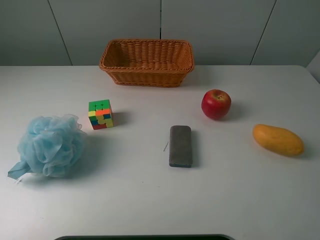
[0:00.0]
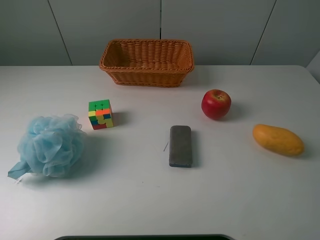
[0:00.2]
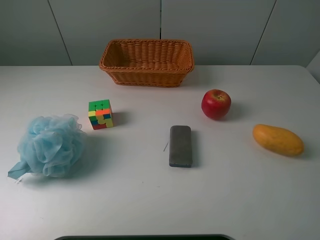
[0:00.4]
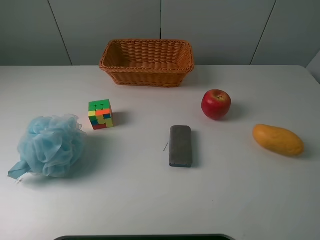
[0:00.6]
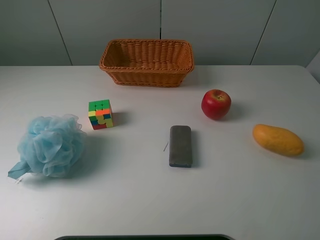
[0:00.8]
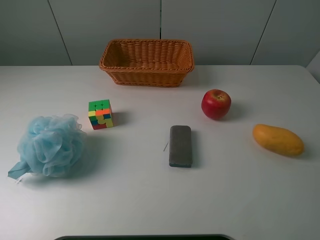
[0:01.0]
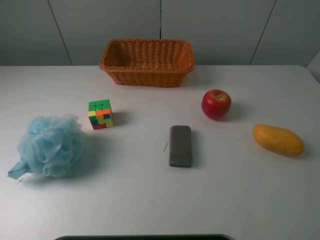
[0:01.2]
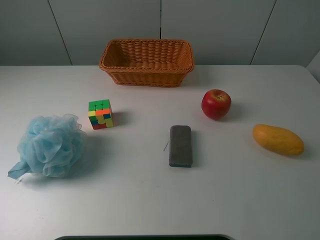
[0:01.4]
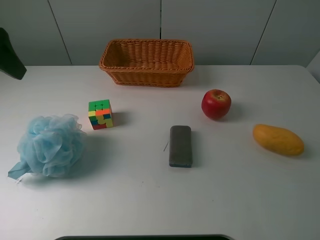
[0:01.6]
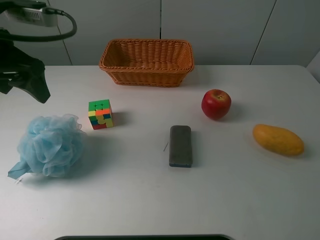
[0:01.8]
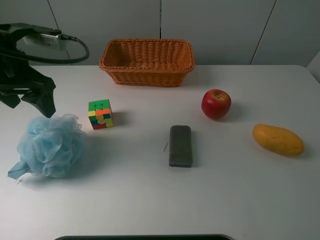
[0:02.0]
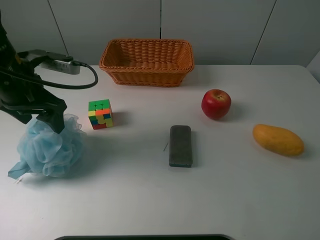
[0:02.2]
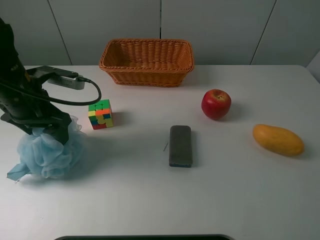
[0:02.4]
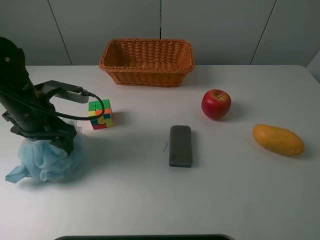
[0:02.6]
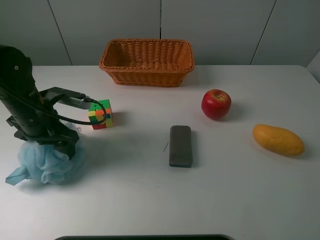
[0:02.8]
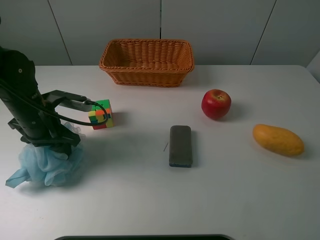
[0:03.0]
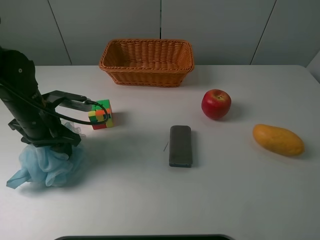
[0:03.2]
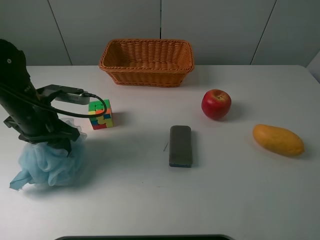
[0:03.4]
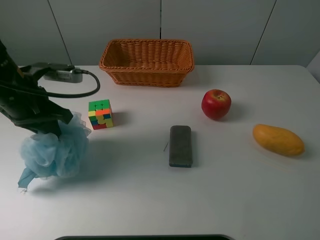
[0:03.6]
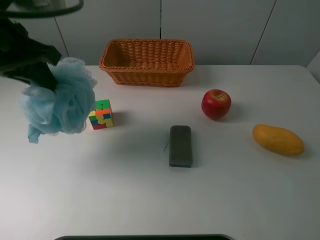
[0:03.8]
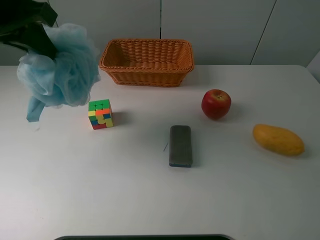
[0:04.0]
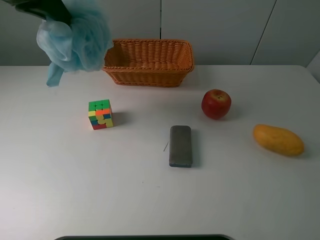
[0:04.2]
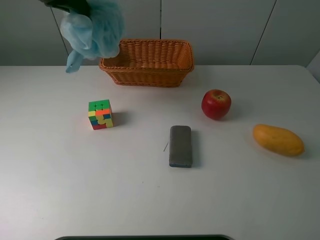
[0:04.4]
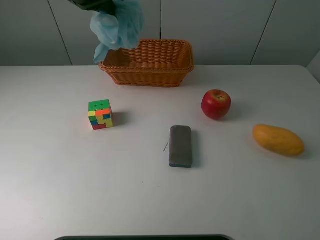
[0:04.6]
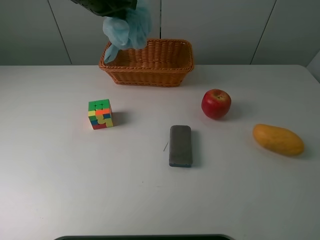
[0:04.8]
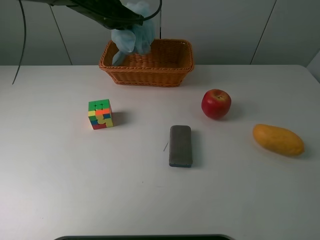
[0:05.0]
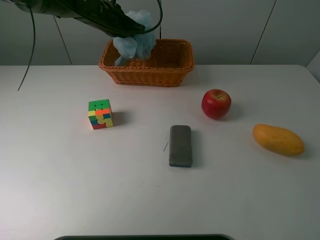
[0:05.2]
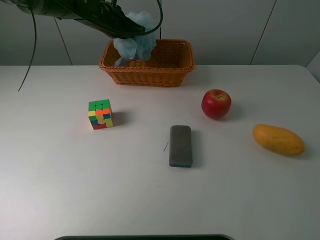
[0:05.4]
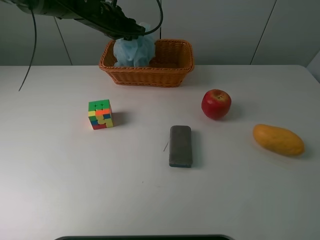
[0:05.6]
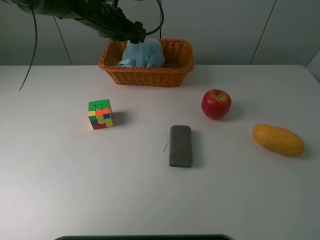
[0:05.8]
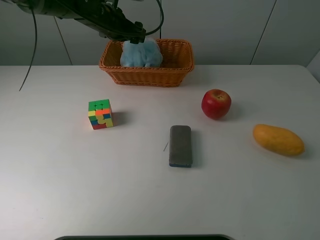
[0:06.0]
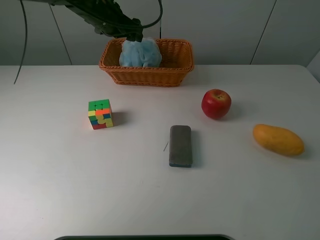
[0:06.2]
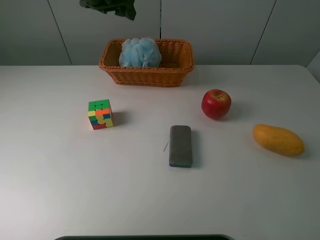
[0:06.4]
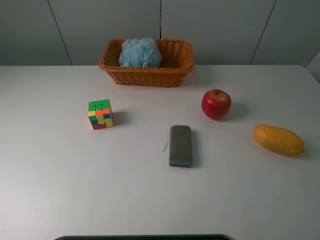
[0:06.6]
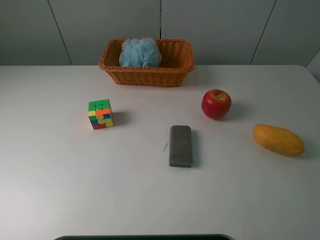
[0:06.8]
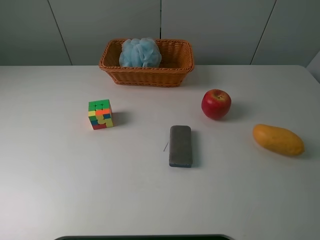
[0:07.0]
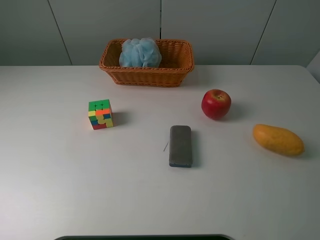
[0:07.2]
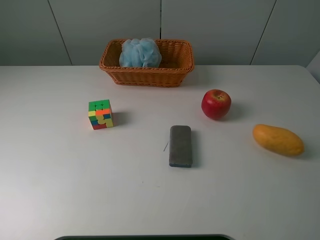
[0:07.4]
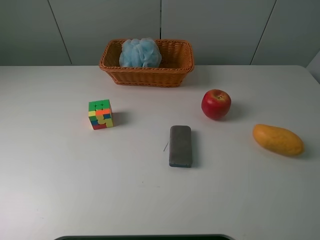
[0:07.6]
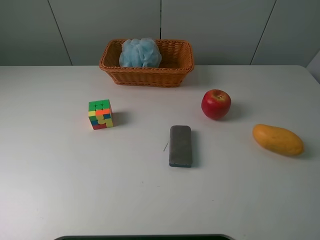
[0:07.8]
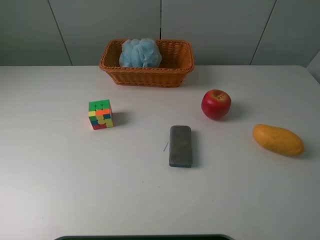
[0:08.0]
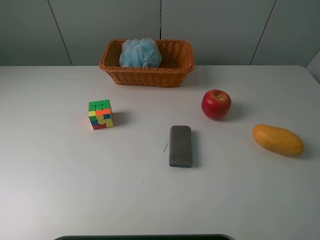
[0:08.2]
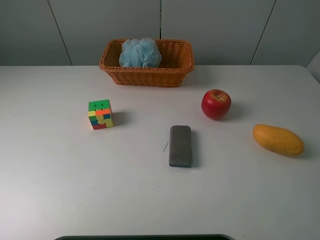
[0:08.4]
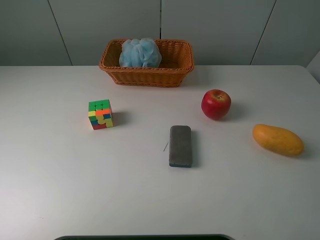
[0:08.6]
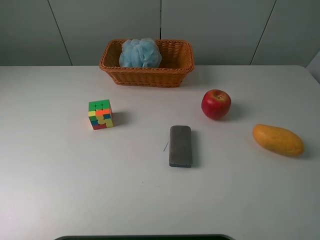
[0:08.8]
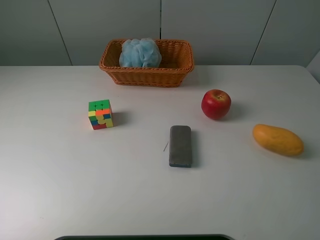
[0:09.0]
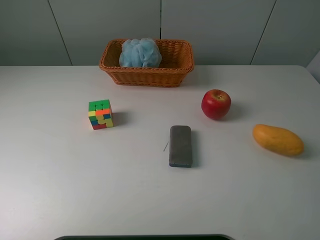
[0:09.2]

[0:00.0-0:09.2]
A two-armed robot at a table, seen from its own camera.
Task of the whole recording: use a picker to grab the item closest to the cube and place it in the basket.
Step, 0:00.0 to 0:03.0: Grasp the Shower puff with the left gripper.
Step, 0:03.2 to 0:06.0: Place the Shower puff into the basket with the left gripper.
0:00.0 to 0:01.6: The left gripper heads forward, covering some 25 cm.
0:01.6 to 0:03.0: The left gripper is displaced downward by approximately 20 cm.
0:03.0 to 0:04.6: The left gripper travels upward, forward and to the right by approximately 25 cm, and closes its fingers.
0:04.6 to 0:06.2: The left gripper heads downward, covering approximately 5 cm, and opens.
0:06.2 to 0:07.6: The left gripper is displaced backward, to the left and upward by some 60 cm.
